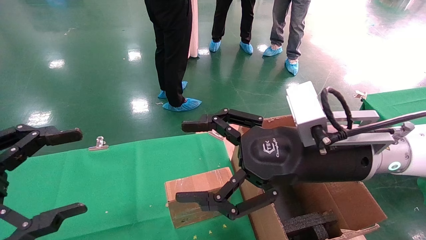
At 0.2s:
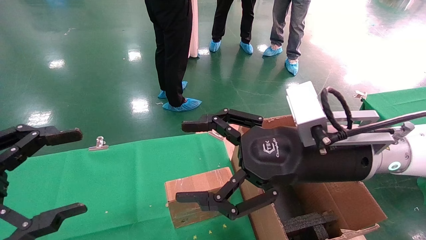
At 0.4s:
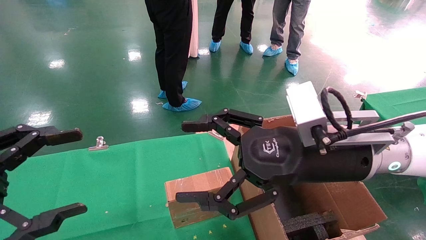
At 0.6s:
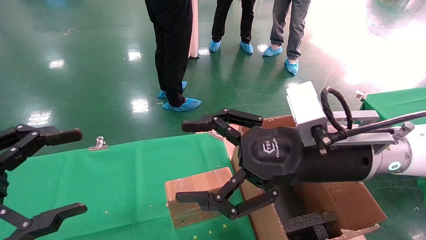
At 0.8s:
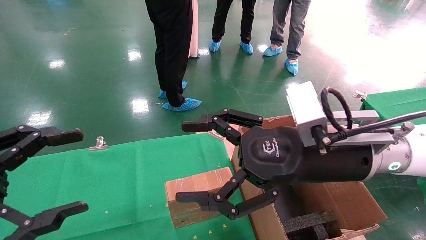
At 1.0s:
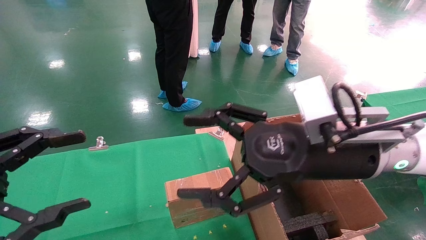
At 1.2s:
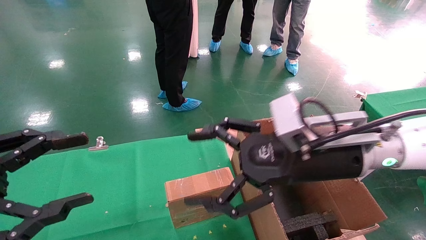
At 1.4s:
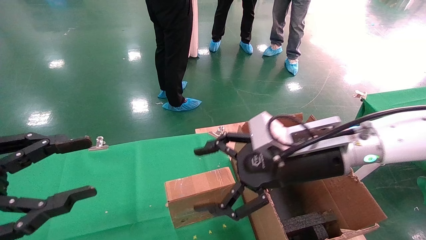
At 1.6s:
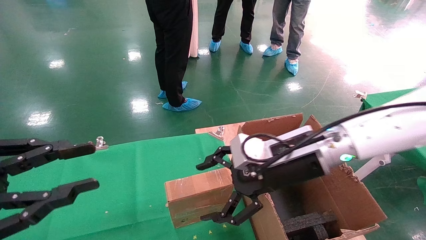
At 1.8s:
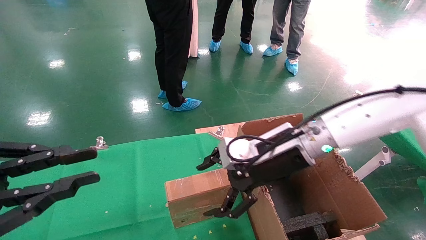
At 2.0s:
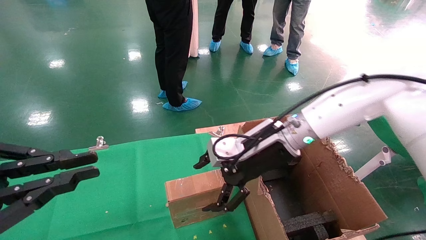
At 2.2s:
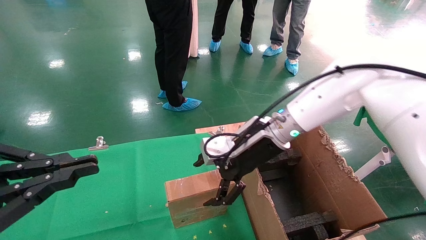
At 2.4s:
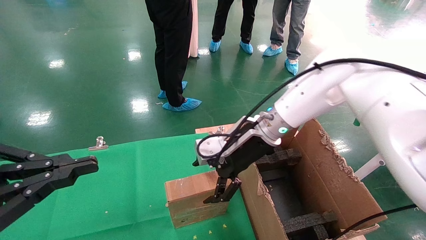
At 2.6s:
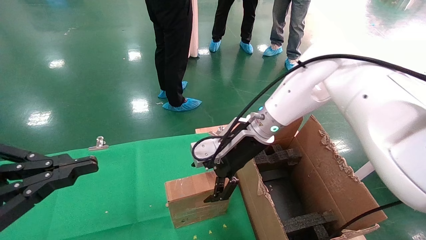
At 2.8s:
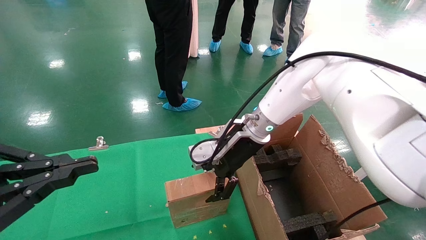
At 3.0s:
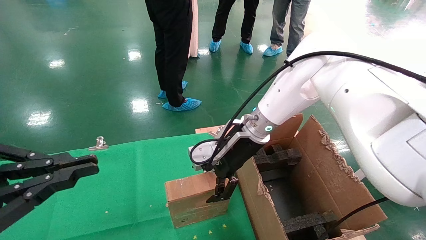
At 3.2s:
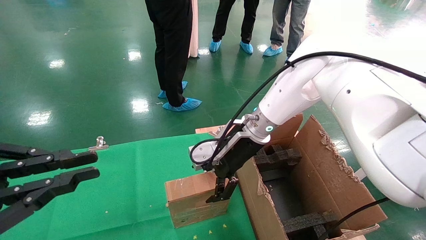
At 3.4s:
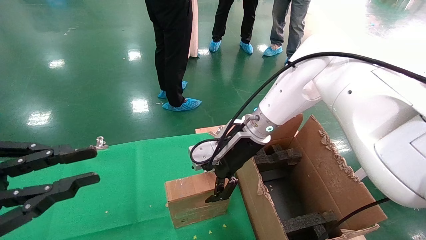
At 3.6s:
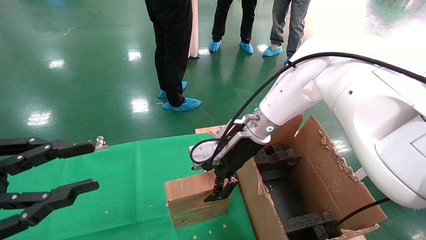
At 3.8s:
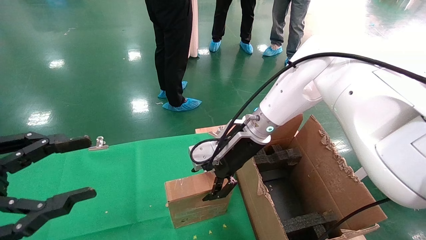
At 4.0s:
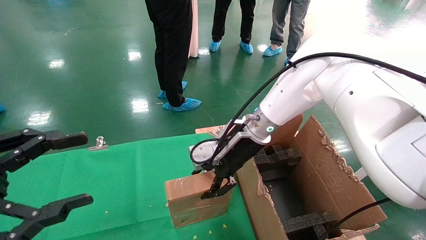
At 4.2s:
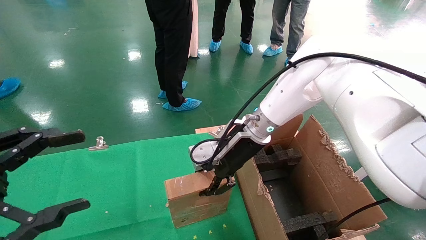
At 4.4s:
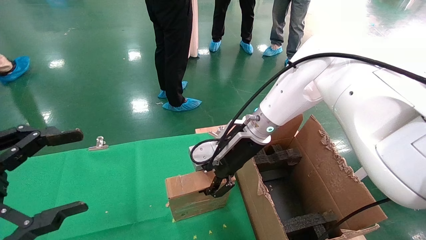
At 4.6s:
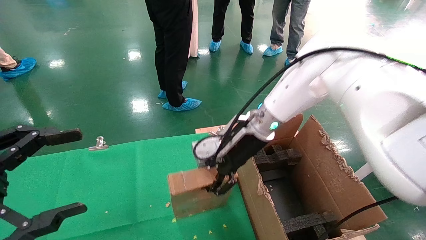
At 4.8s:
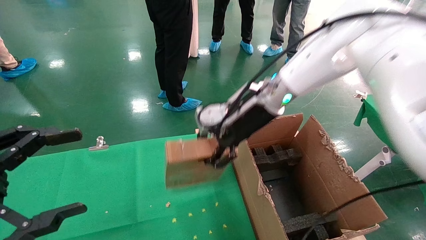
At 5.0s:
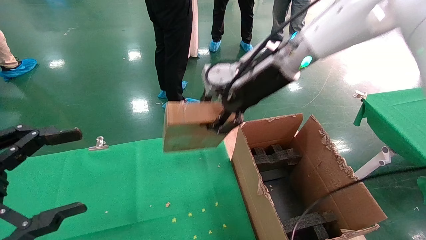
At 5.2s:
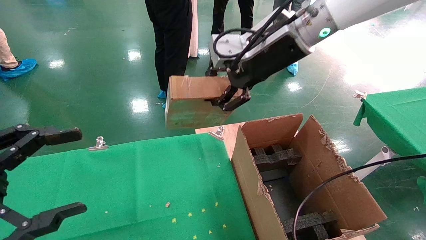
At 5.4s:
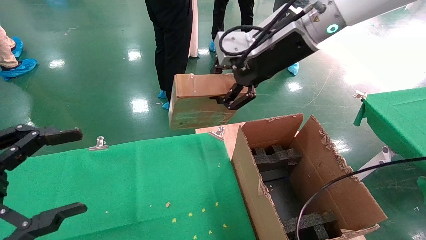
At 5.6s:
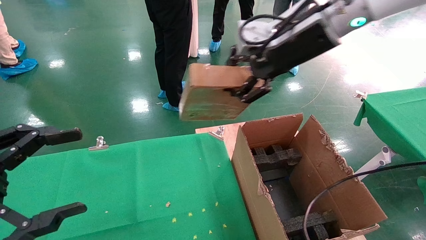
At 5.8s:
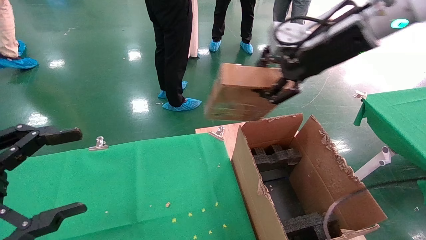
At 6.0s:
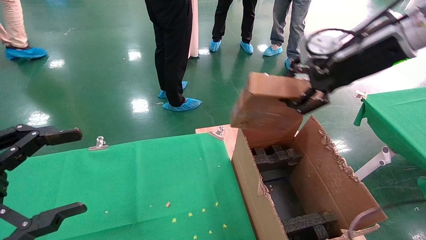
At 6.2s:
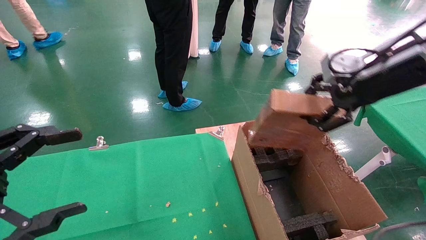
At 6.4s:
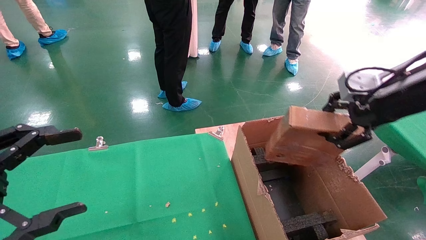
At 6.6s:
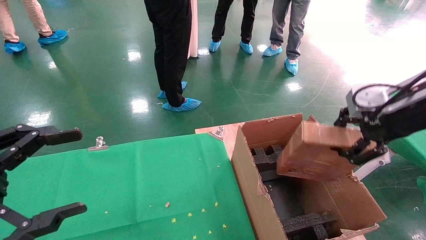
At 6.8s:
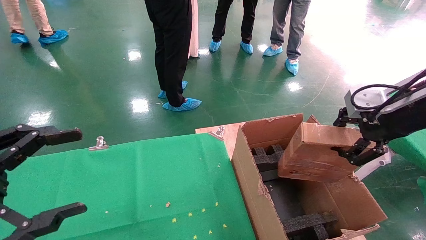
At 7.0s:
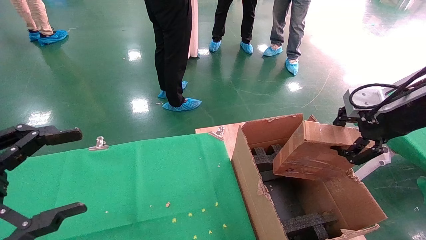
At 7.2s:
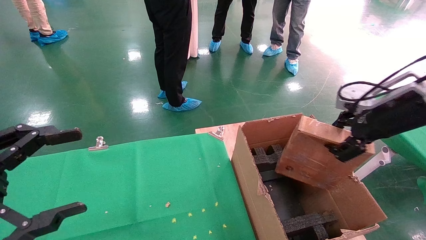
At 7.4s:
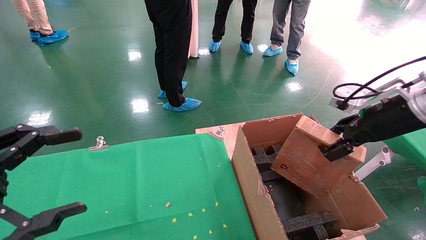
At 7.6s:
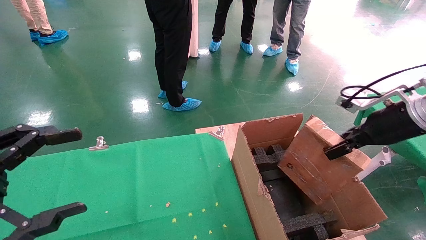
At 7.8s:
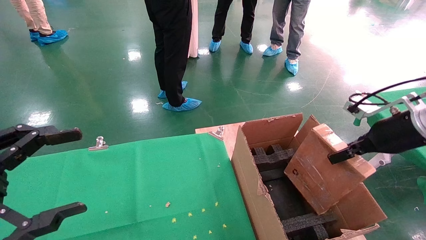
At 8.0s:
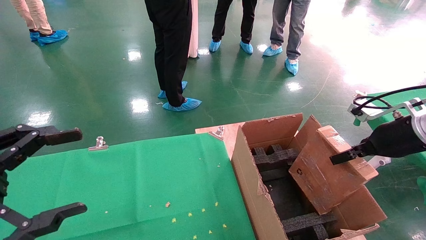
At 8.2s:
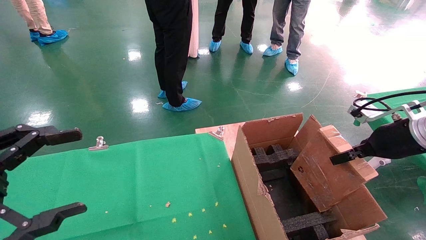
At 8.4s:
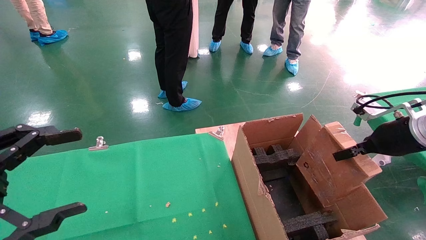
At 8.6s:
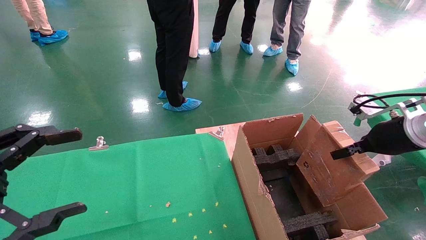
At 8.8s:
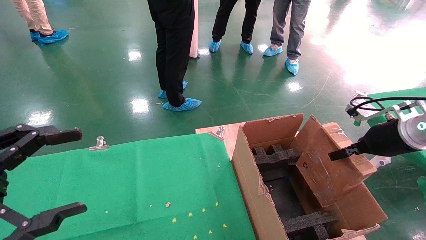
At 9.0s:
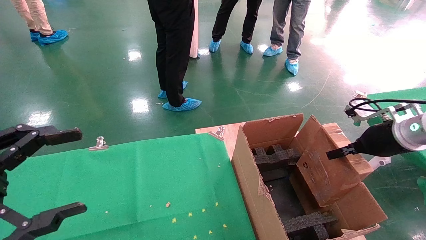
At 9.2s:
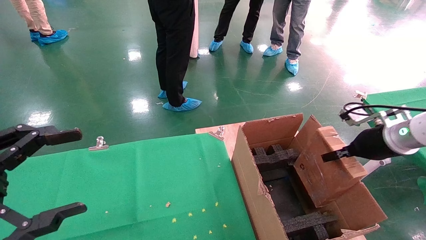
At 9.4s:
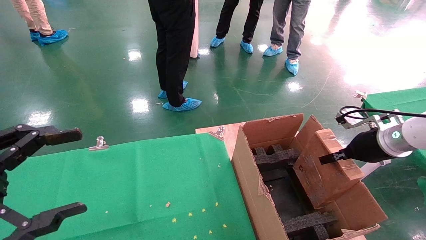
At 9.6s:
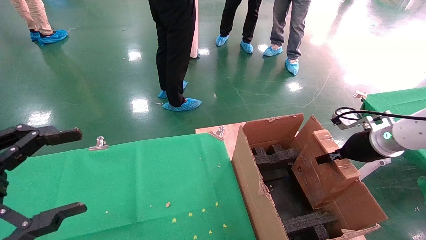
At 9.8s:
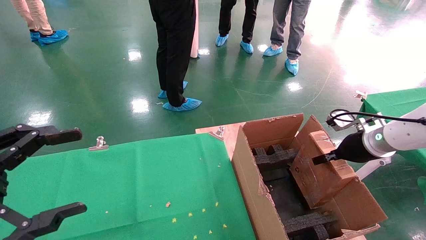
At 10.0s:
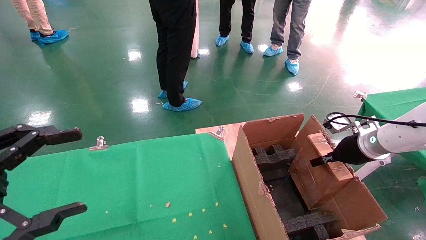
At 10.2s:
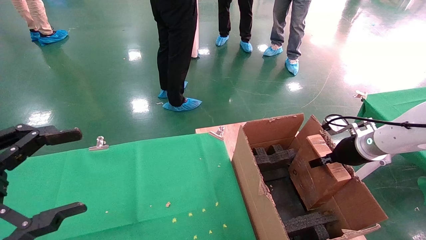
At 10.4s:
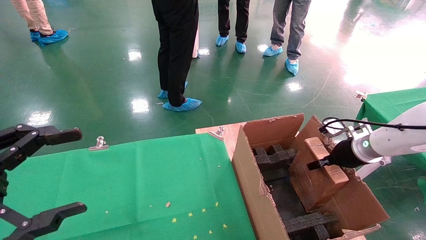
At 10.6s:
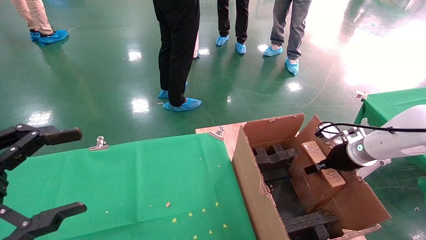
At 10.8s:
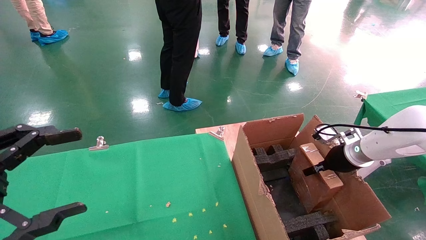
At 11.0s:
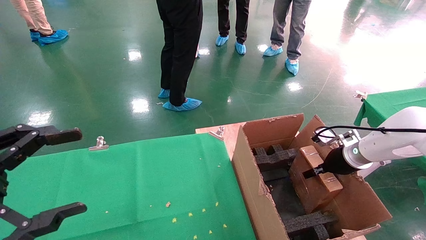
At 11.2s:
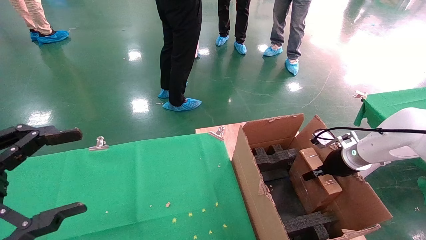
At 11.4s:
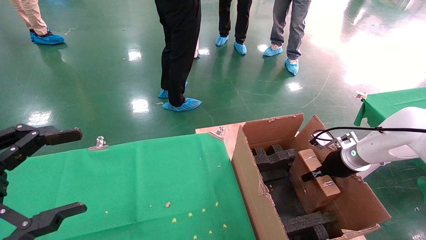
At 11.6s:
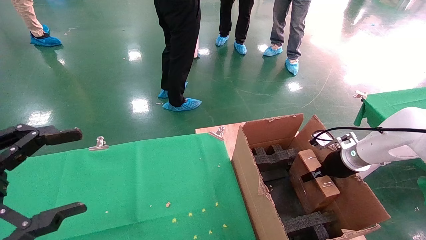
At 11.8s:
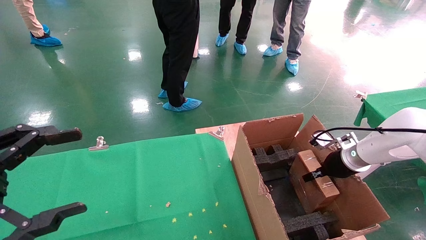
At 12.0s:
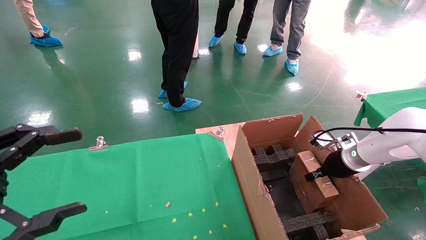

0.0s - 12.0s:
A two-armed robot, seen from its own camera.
Task of the whole recording: using a robotic arm to pick up a cardboard box and palace it the carton.
Step, 1.4s - 4.4s: Pick up the mouse and the power cord paper box.
0.0s - 1.6s: The left gripper closes. Meanwhile the right gripper is displaced forward by about 5 cm.
1.6s - 3.0s: The right gripper moves forward and to the left, approximately 15 cm; the left gripper closes up.
3.0s - 4.4s: The right gripper closes up. Meanwhile the left gripper opens its fingers.
4.4s - 6.0s: The right gripper heads to the right, upward and backward, covering approximately 30 cm.
6.0s - 7.6s: The right gripper shifts about 15 cm downward and to the right.
7.6s - 9.0s: The right gripper ends up roughly 5 cm from where it was.
9.0s - 10.4s: The right gripper shifts about 10 cm downward and forward.
10.4s - 12.0s: The grippers make only small movements.

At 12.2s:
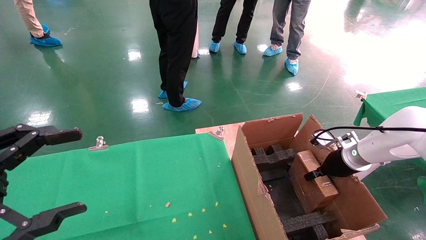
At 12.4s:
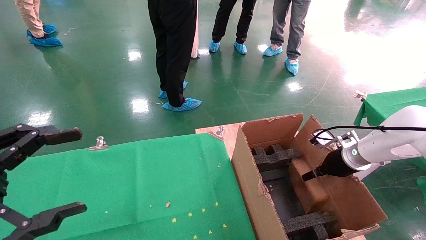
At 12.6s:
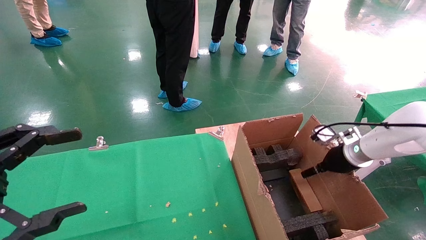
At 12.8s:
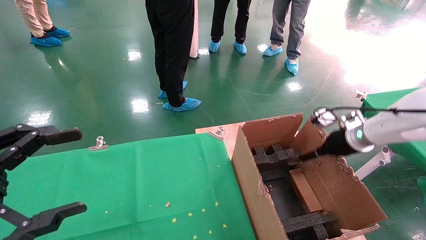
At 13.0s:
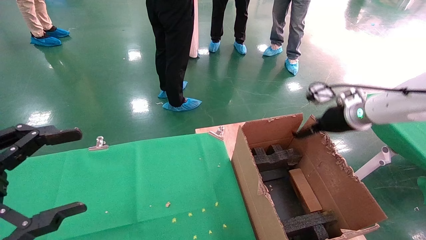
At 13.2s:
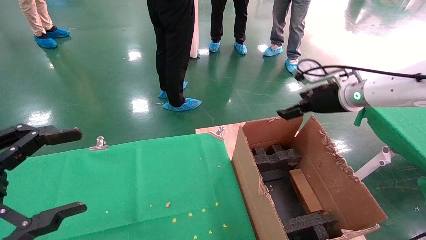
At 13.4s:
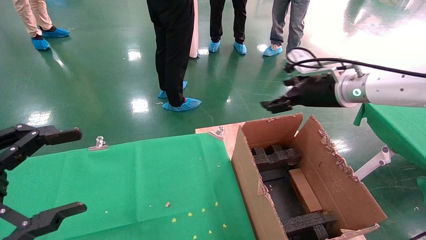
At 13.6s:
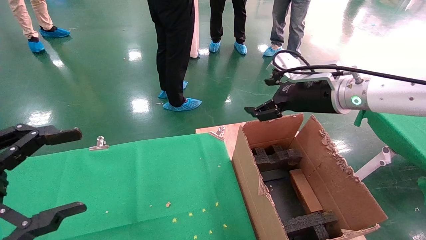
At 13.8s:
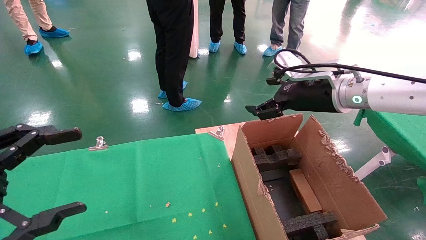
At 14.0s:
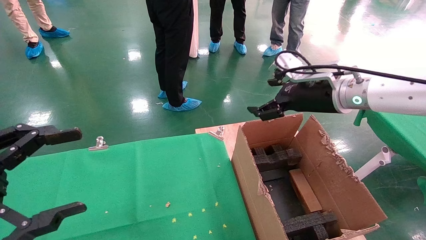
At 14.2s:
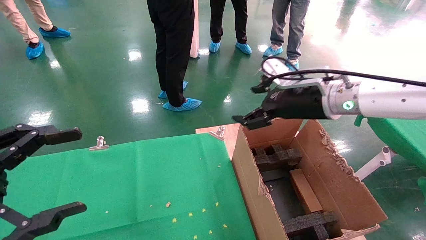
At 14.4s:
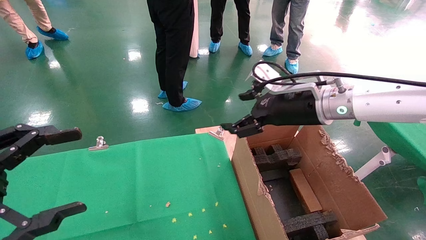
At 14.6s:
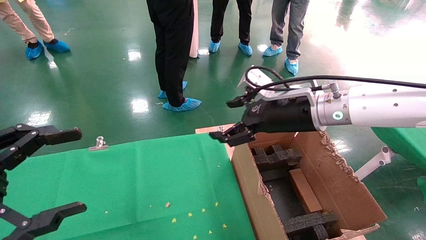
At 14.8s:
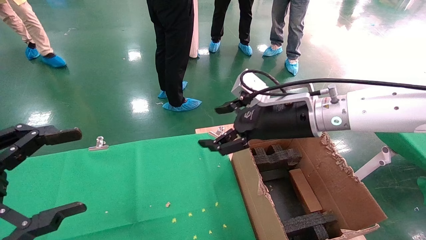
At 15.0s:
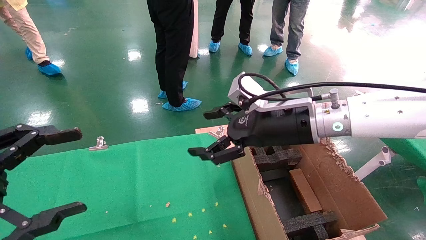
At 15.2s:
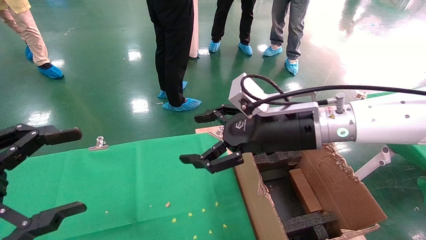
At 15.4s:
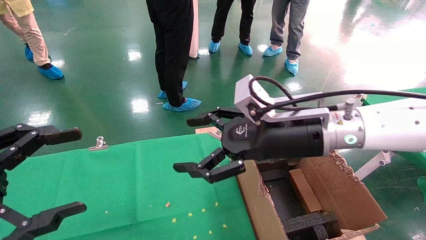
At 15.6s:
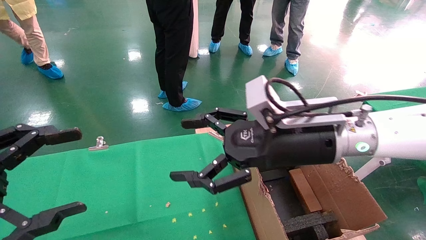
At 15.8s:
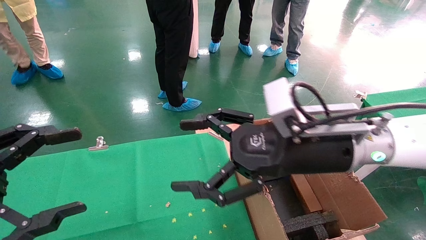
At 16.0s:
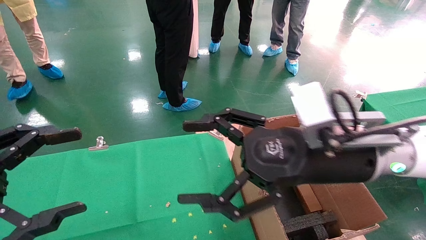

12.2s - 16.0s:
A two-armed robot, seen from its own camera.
Task of the whole recording: using a robotic arm to pick up a cardboard box and palace it the carton.
12.2s - 13.4s: The right gripper goes roughly 20 cm upward and to the left, and opens up.
13.4s - 14.8s: The right gripper is displaced to the left and backward by about 10 cm.
14.8s - 16.0s: The right gripper moves backward, about 10 cm.

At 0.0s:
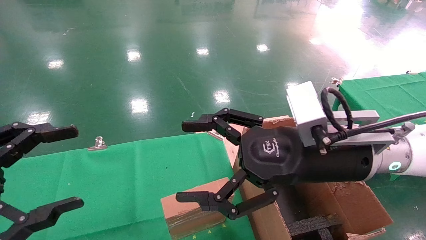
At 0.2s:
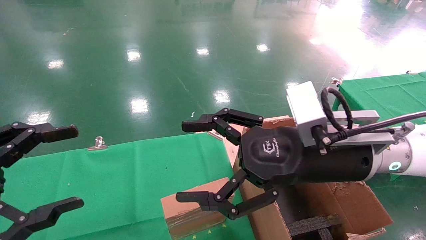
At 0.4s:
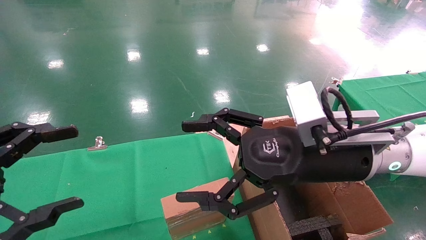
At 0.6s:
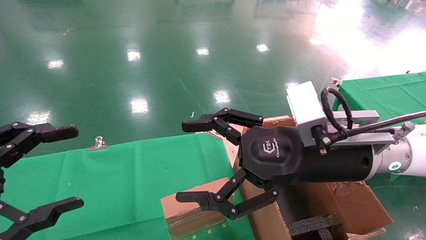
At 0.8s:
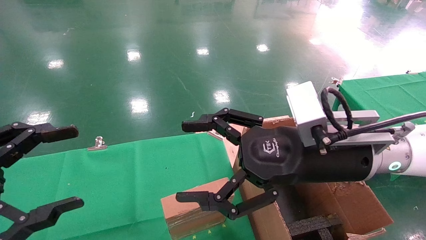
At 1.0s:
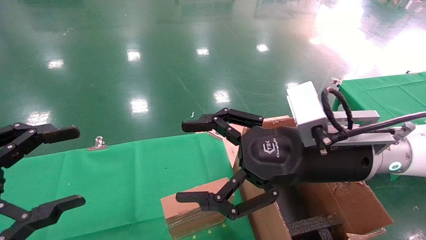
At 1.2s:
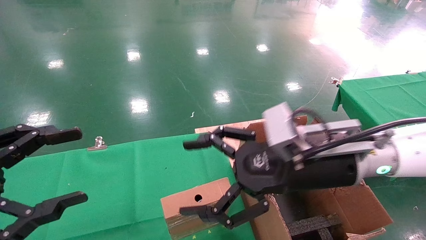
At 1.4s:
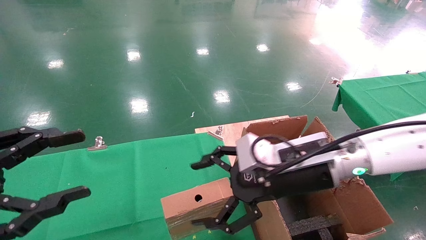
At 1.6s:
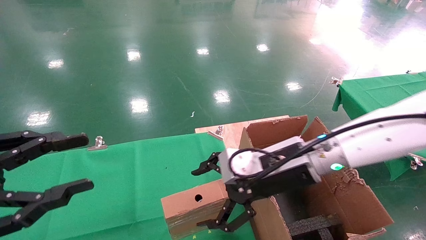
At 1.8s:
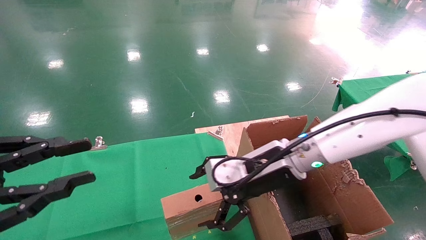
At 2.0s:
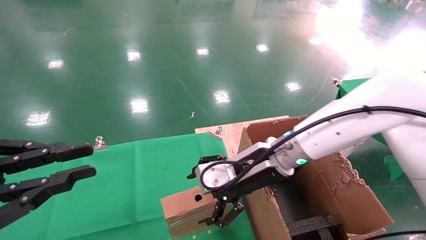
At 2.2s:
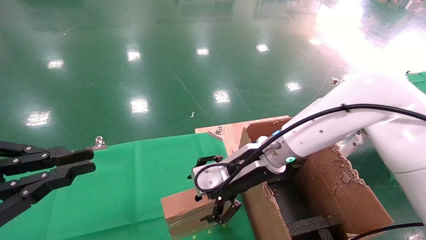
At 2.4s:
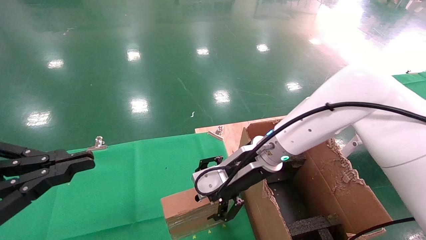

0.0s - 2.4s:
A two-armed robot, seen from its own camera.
Task of the whole recording: using a robotic arm to pick up a cardboard box and palace it the carton.
0.0s - 1.2s: There are only small adjustments of the grippers.
1.2s - 2.4s: The left gripper closes, while the right gripper goes about 10 cm forward and to the left.
